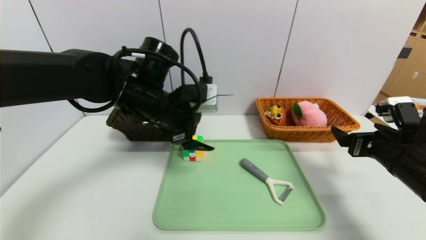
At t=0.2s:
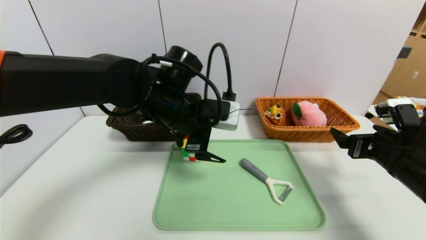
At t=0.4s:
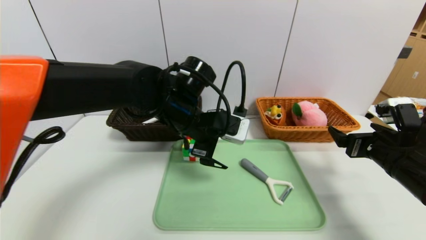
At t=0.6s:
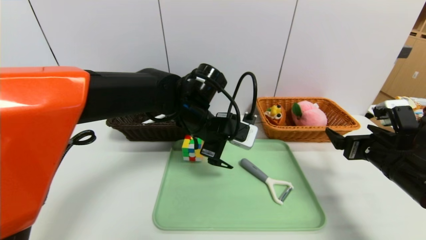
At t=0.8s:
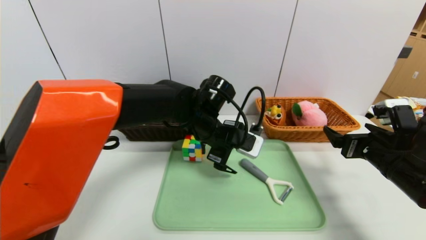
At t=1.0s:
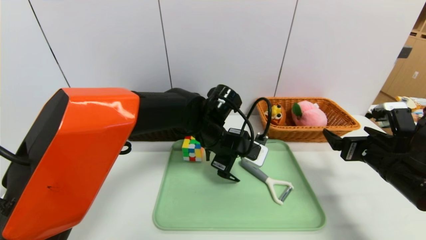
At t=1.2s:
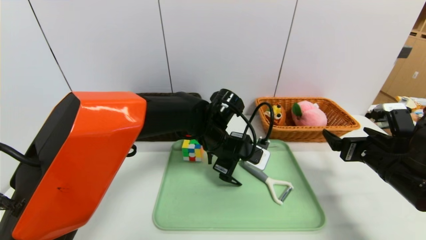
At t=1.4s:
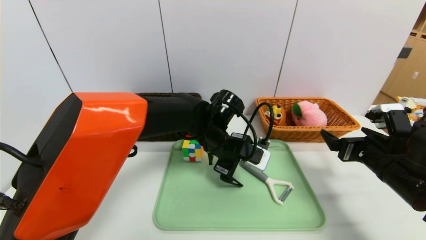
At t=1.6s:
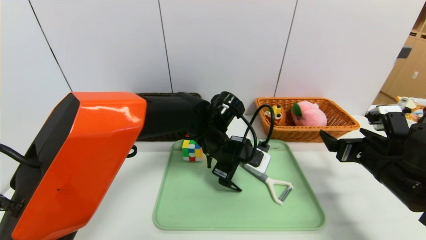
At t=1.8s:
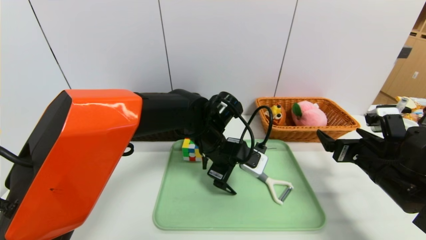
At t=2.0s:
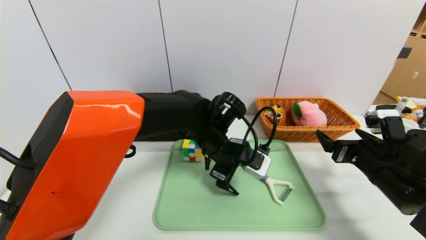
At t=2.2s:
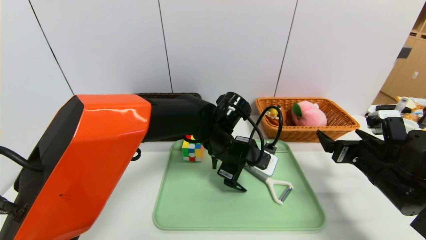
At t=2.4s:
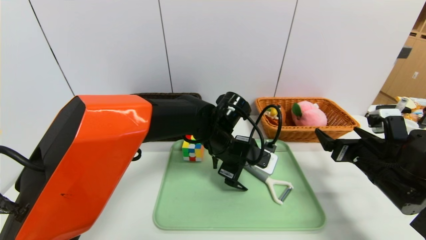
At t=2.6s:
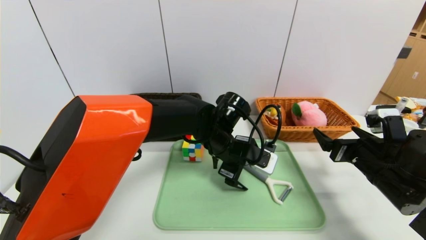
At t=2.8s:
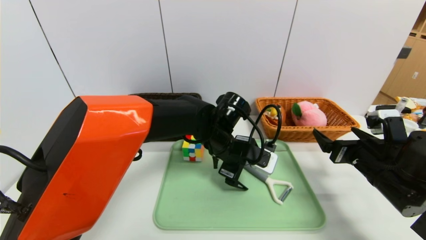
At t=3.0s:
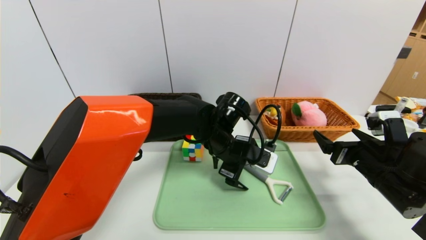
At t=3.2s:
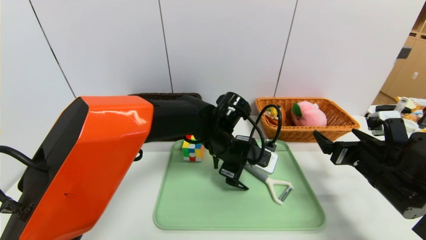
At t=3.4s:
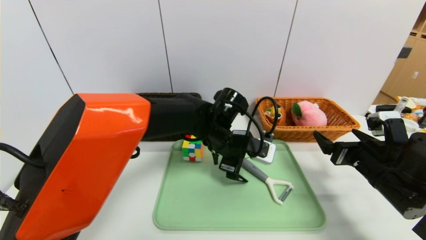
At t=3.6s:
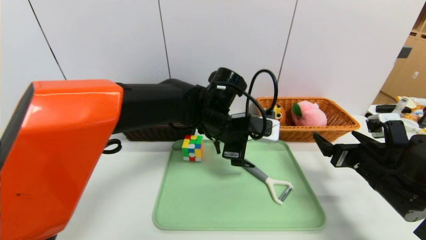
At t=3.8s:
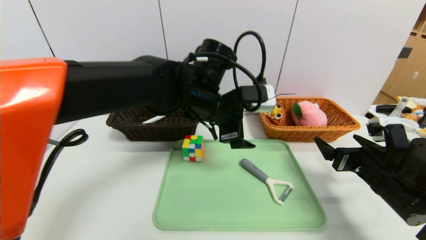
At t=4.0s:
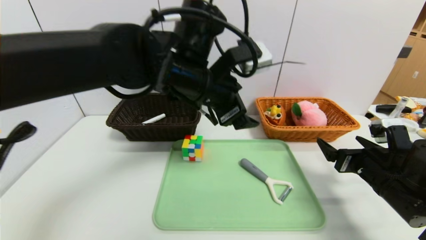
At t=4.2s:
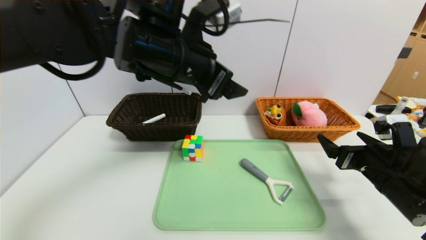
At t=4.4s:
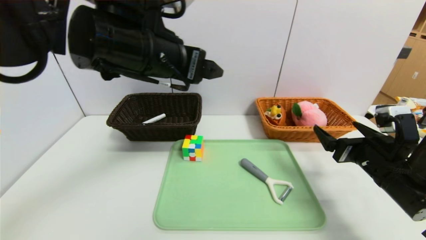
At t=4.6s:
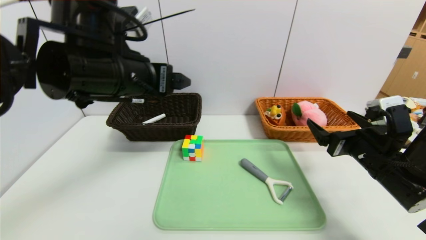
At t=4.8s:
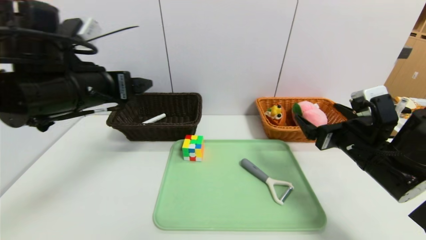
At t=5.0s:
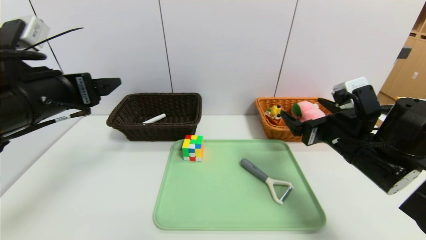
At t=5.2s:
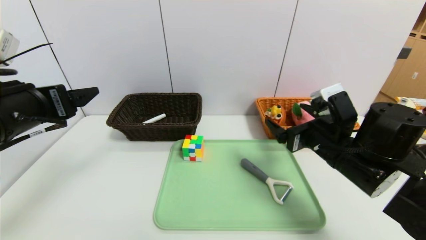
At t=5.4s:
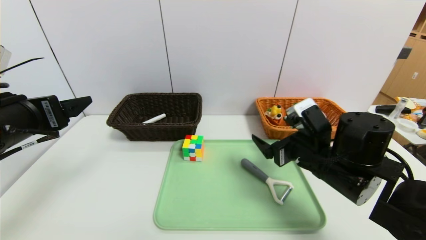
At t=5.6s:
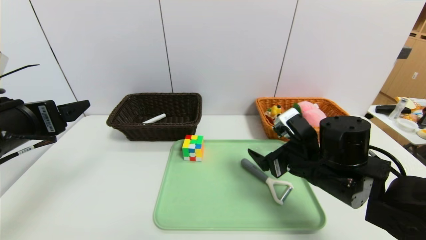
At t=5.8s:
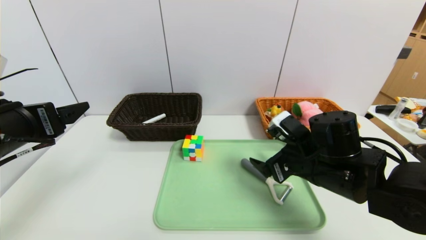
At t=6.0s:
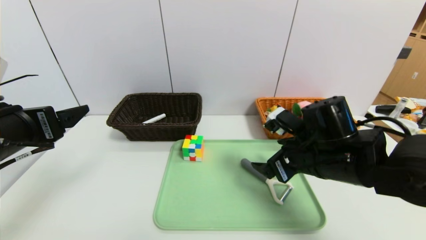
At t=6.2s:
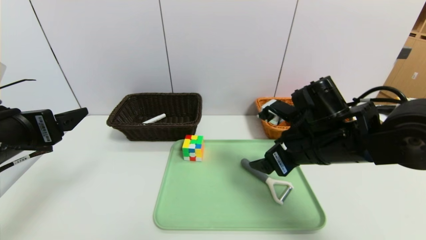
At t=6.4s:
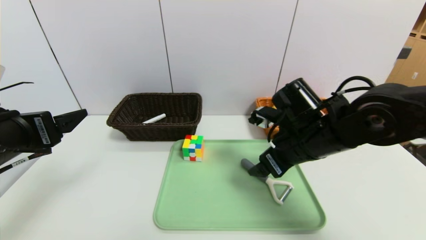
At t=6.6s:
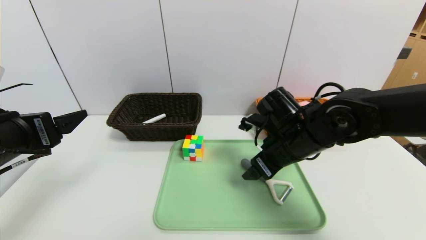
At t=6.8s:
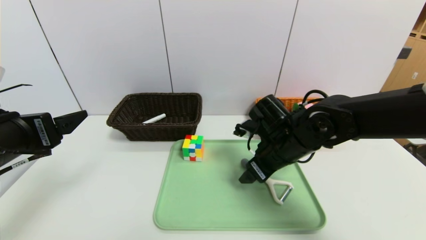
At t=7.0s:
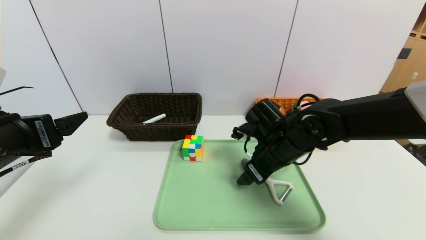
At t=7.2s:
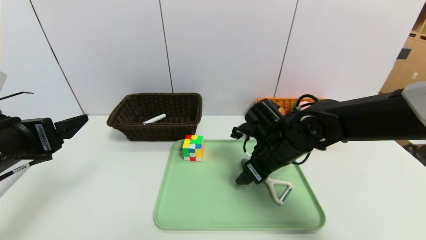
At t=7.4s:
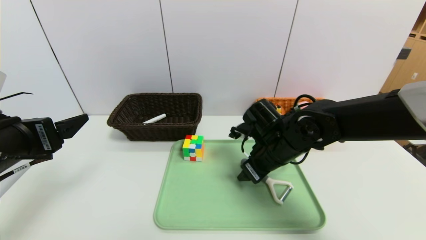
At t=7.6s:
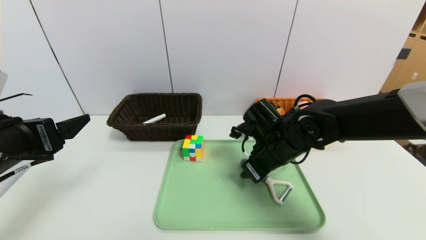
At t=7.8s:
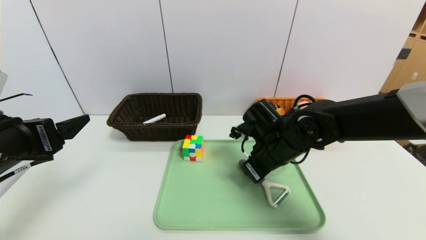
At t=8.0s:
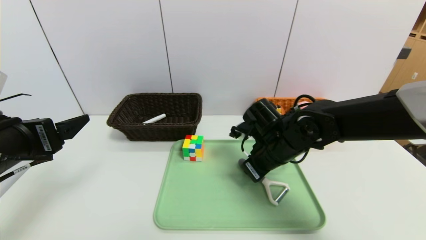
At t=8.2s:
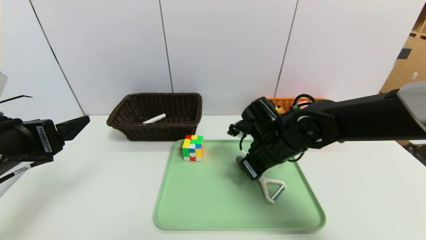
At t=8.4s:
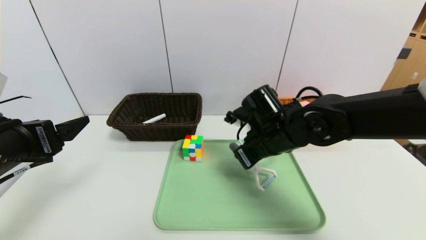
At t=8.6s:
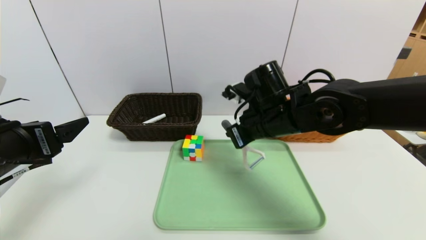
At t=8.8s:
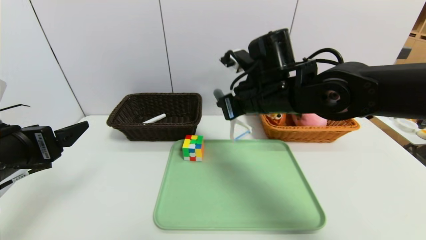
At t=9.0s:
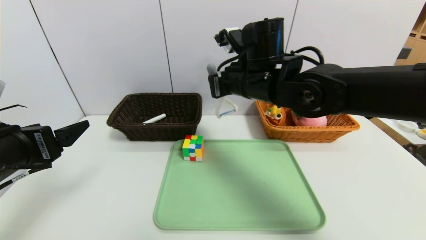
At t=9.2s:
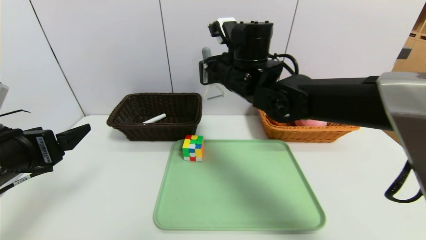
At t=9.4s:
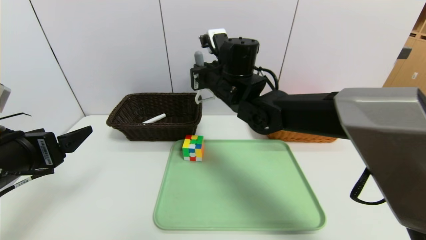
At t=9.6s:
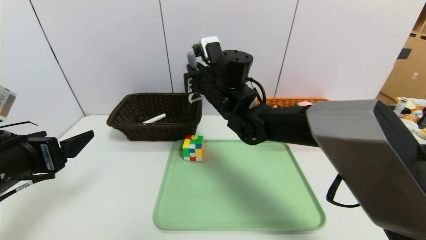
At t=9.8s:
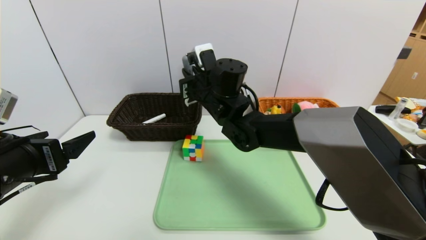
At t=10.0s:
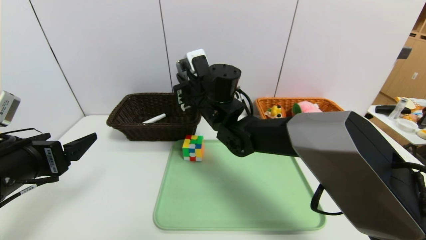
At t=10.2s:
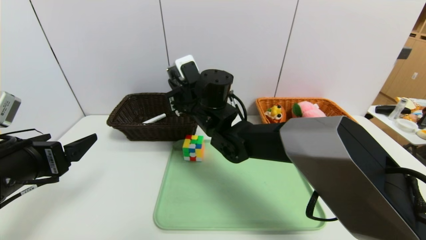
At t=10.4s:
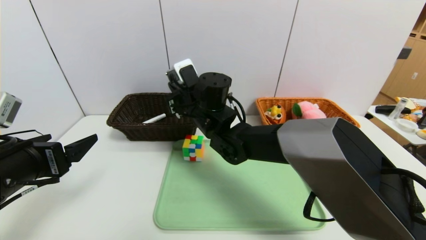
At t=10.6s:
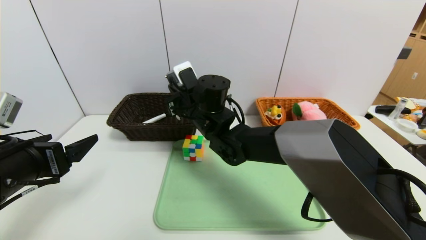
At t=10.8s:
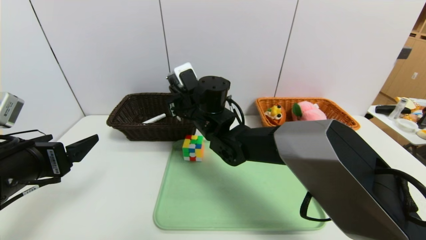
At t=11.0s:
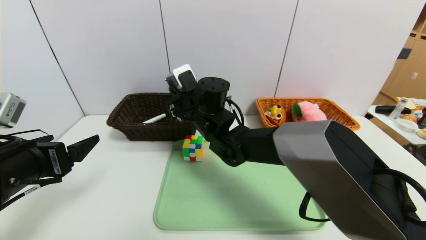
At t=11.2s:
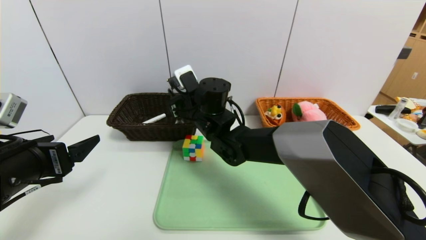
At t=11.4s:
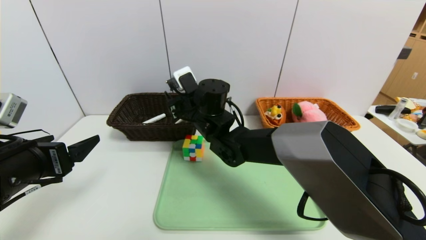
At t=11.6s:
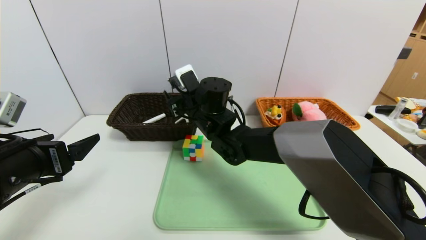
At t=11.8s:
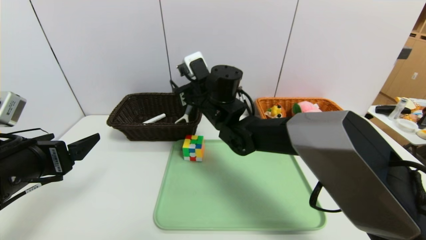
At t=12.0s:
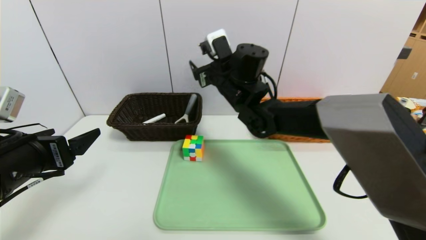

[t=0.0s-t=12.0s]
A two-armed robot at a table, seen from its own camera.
Task of the whole recording: place the food in the right basket with the right gripper, and place the non food items in the left basket with the left gripper.
t=0.0s to t=1.6s: The left gripper is displaced to the right and downward by about 15 cm.
t=1.6s to t=3.0s: The grippers make only small movements.
t=3.0s to t=4.4s: The left gripper is displaced upward and to the left by about 25 cm.
t=4.4s to t=6.0s: The right gripper is displaced to the left by approximately 10 cm, while the left gripper goes about 20 cm to the left, downward and backward.
t=6.0s to t=7.6s: The right gripper is displaced forward by approximately 5 cm, and closes.
t=7.6s to t=9.0s: The right gripper shifts about 15 cm upward and to the left, and closes its fingers.
t=9.0s to t=10.4s: The right gripper shifts some 10 cm to the left and downward.
t=10.4s to t=12.0s: The right gripper is displaced to the right and upward by some 10 cm, and opens.

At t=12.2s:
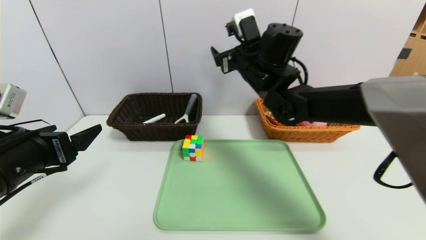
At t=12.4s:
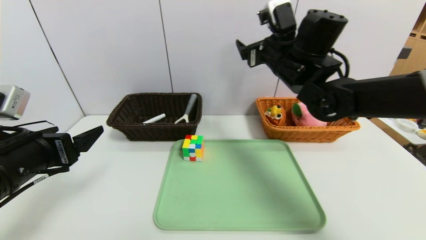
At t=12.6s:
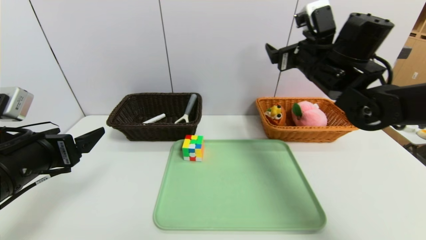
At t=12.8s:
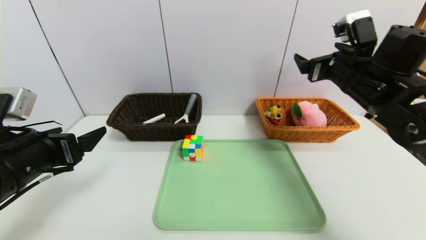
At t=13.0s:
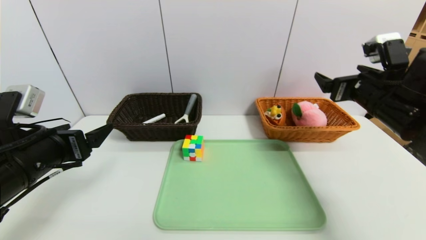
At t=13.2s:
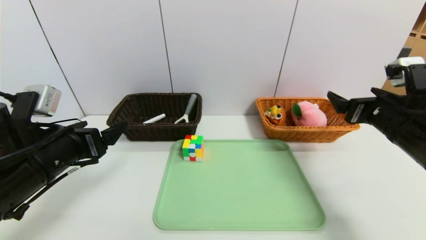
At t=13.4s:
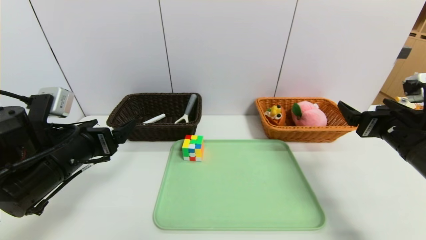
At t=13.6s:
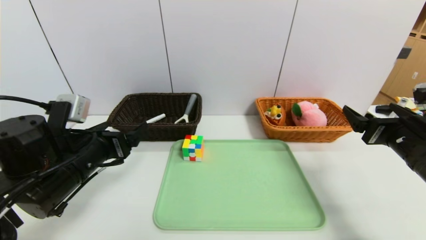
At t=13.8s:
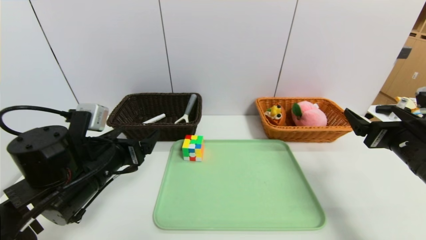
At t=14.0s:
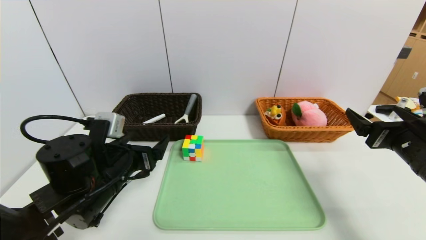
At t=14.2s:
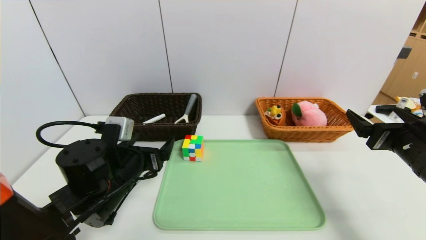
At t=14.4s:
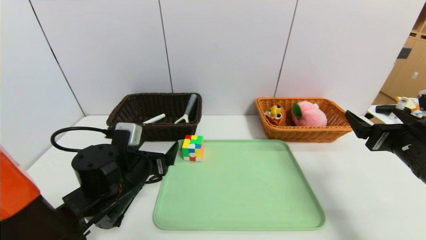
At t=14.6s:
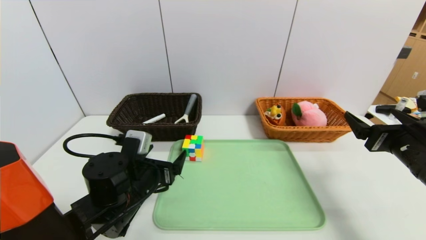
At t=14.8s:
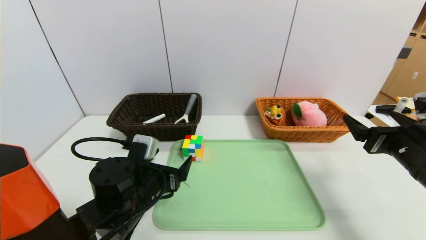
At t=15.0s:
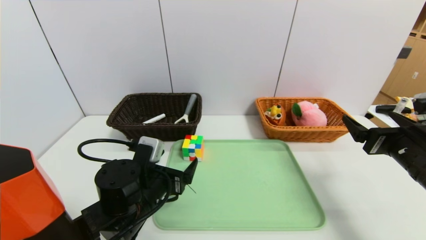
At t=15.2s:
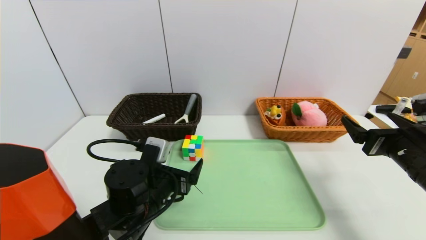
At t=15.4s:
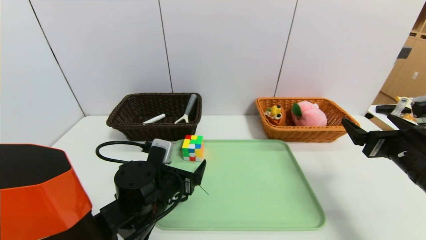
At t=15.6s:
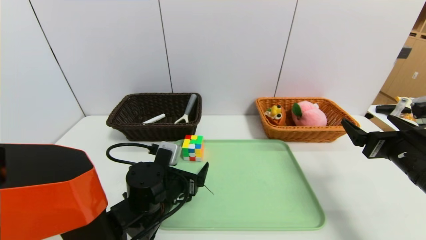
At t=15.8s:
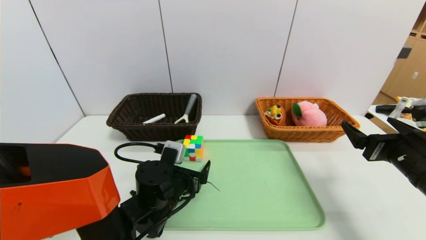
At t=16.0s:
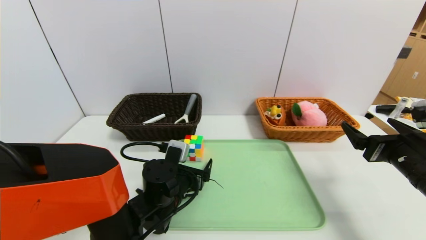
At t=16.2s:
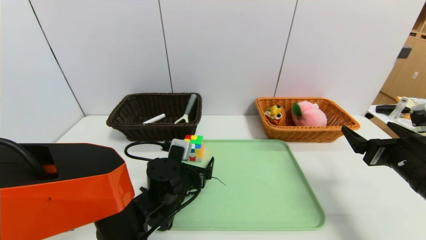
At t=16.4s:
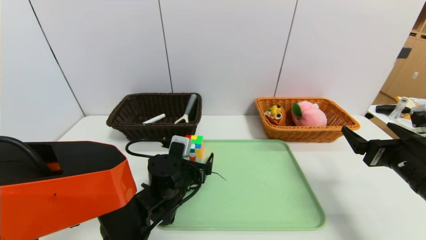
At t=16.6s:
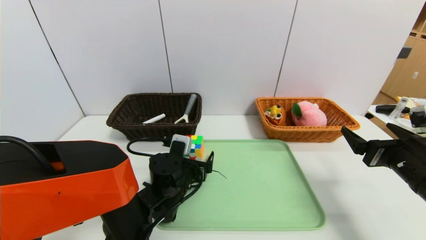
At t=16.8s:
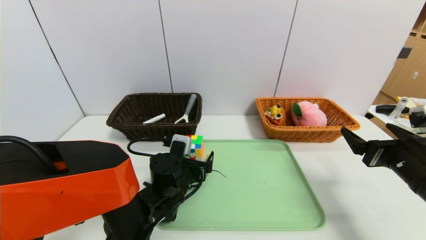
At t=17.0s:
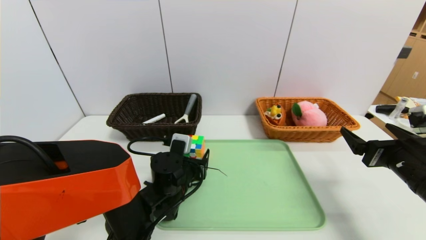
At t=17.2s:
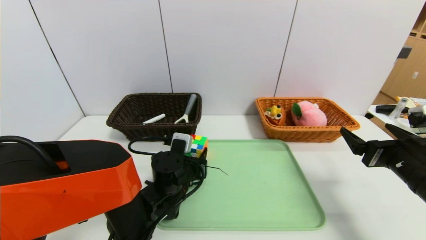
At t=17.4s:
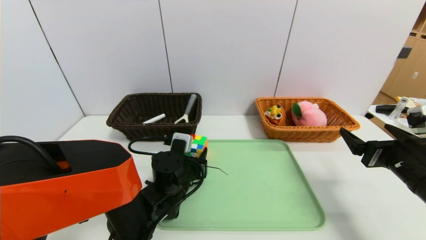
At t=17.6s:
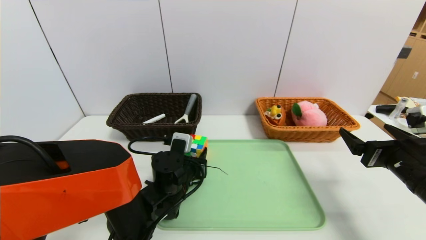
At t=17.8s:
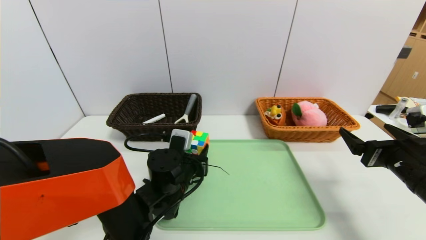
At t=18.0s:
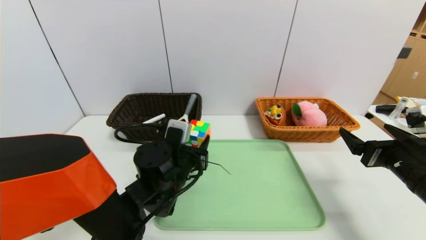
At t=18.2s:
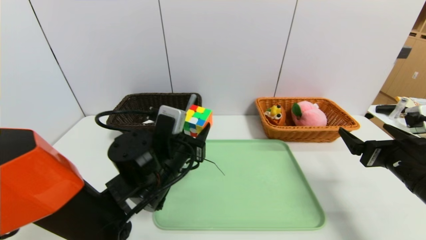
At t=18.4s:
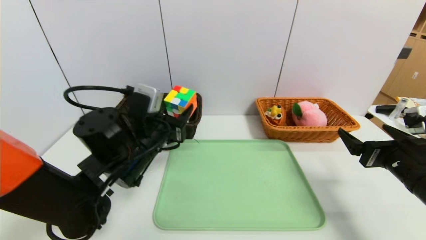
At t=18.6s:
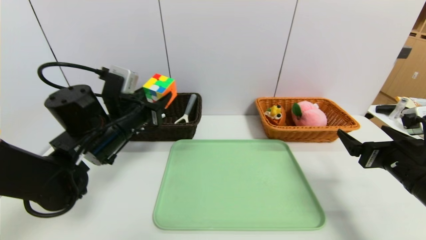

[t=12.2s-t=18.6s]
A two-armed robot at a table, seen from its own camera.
Task of the whole recording: place the food in the right basket with the right gripper, and place the non food items in the left basket with the left gripper.
t=12.2s to t=13.8s: The left gripper shifts about 10 cm to the right and downward, while the right gripper shifts some 30 cm to the right, backward and downward.
t=13.8s to t=15.4s: The left gripper travels to the right and downward by some 10 cm.
t=15.4s to t=17.0s: The left gripper heads forward, covering about 5 cm.
t=17.0s to t=18.6s: The left gripper moves upward and to the left, roughly 20 cm.
